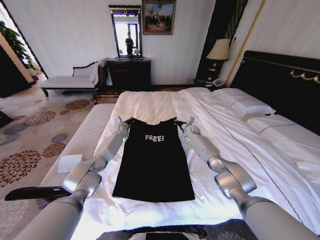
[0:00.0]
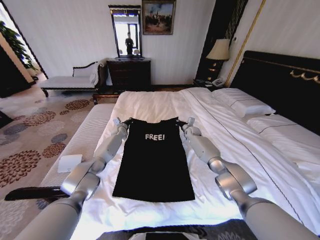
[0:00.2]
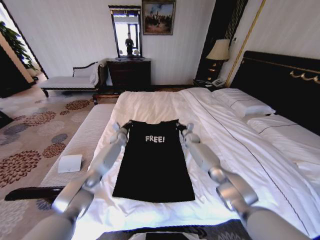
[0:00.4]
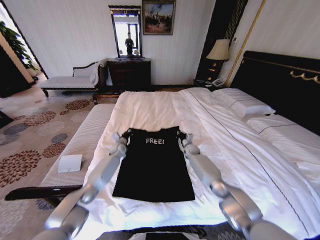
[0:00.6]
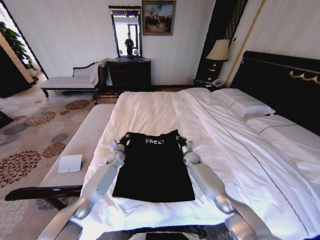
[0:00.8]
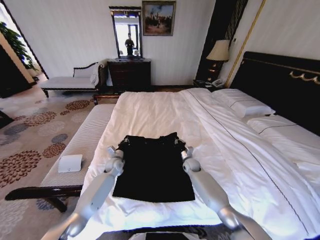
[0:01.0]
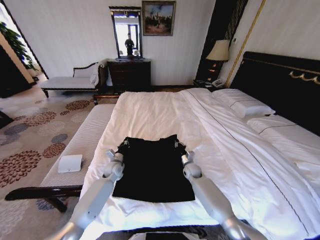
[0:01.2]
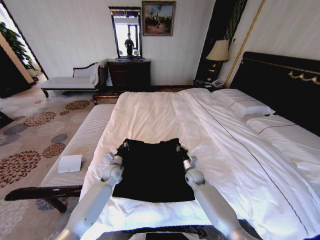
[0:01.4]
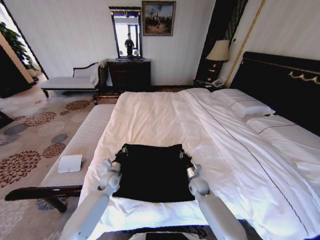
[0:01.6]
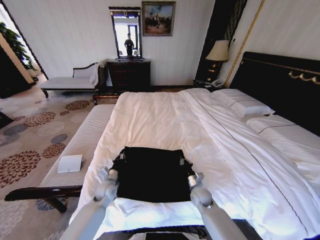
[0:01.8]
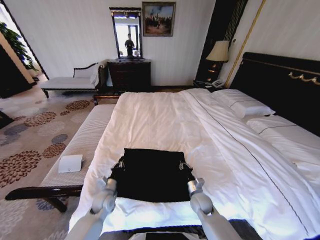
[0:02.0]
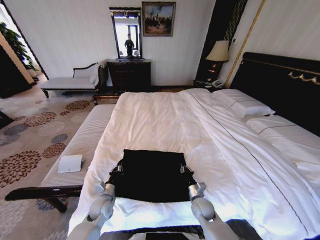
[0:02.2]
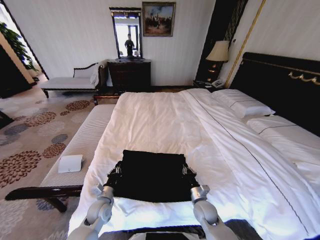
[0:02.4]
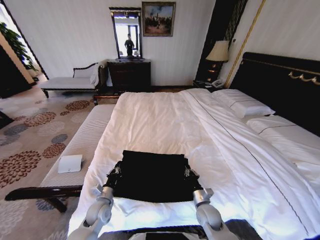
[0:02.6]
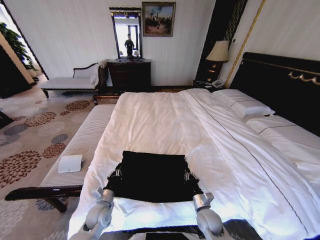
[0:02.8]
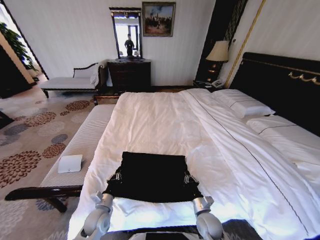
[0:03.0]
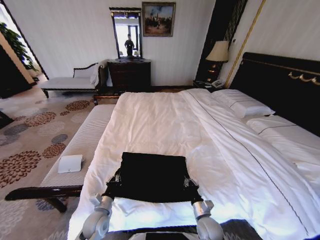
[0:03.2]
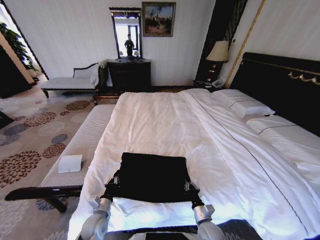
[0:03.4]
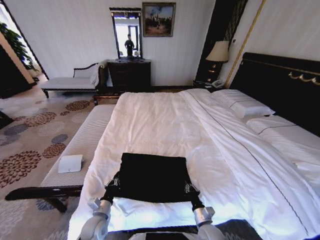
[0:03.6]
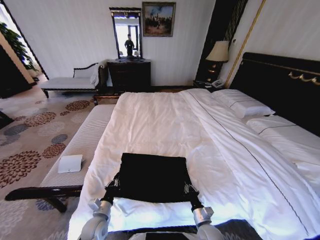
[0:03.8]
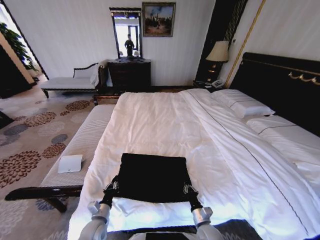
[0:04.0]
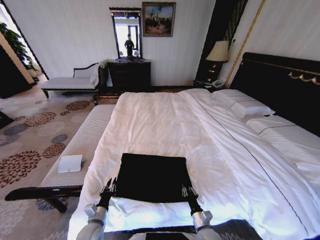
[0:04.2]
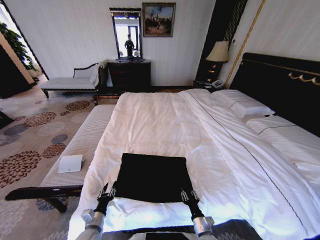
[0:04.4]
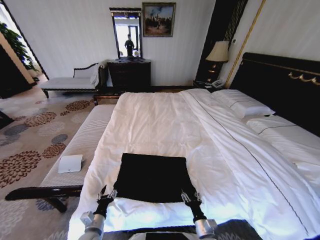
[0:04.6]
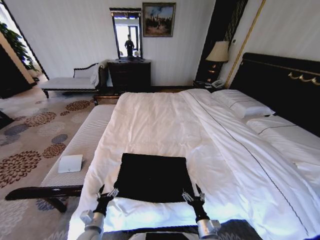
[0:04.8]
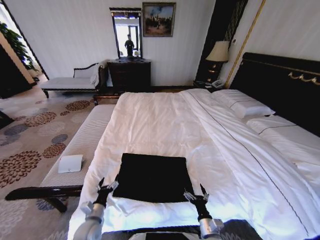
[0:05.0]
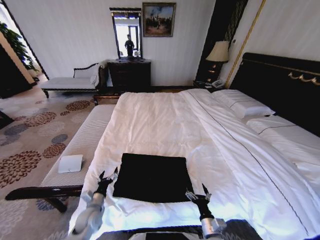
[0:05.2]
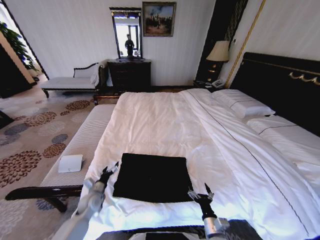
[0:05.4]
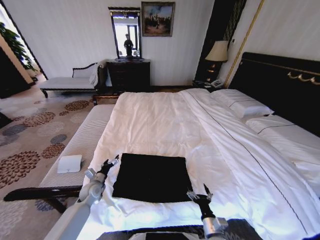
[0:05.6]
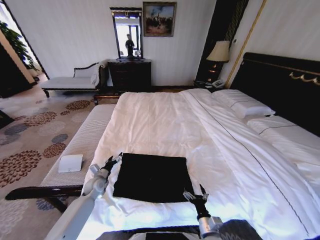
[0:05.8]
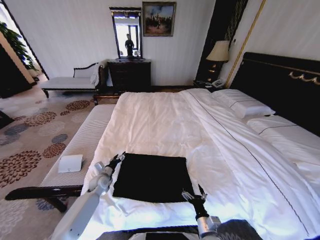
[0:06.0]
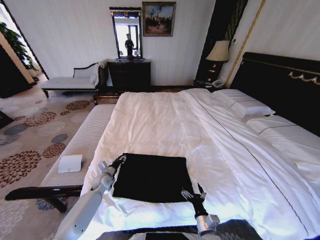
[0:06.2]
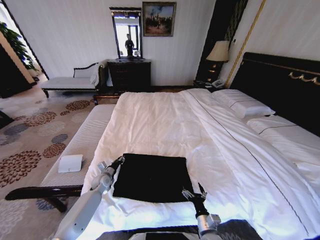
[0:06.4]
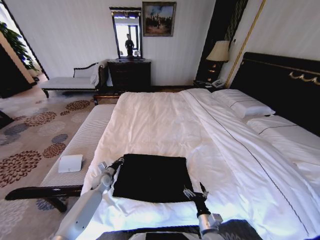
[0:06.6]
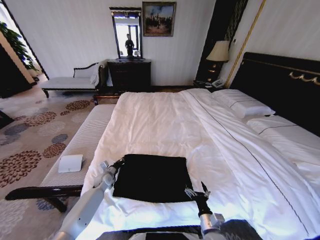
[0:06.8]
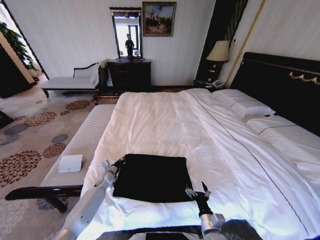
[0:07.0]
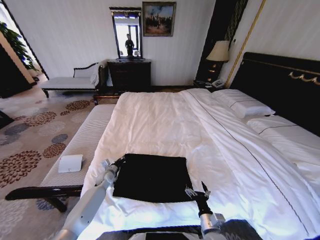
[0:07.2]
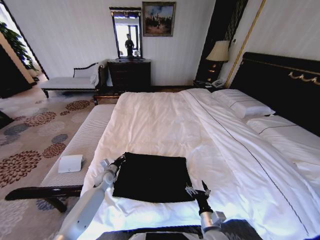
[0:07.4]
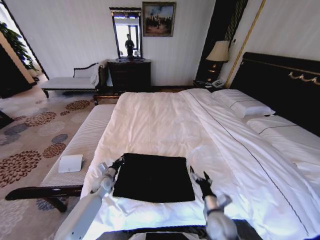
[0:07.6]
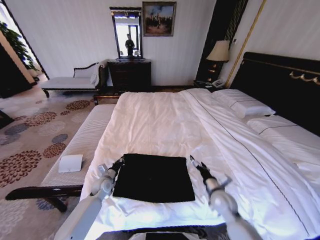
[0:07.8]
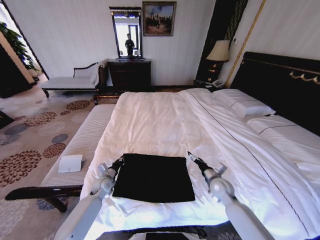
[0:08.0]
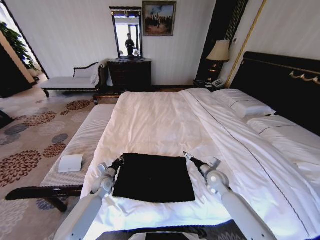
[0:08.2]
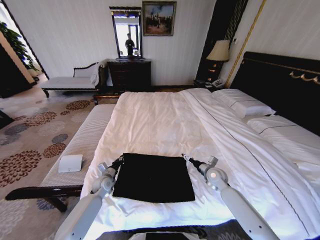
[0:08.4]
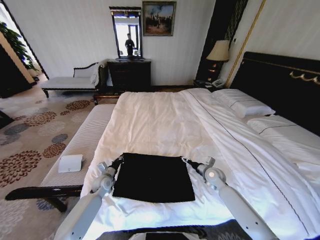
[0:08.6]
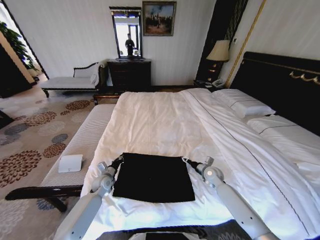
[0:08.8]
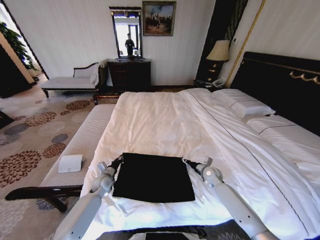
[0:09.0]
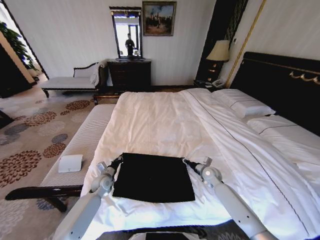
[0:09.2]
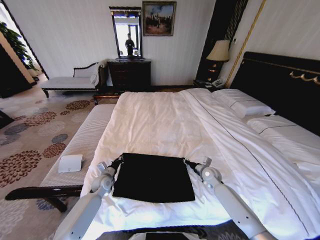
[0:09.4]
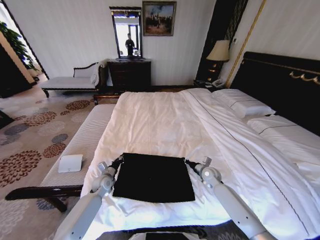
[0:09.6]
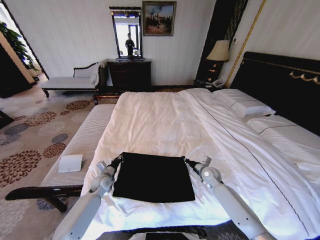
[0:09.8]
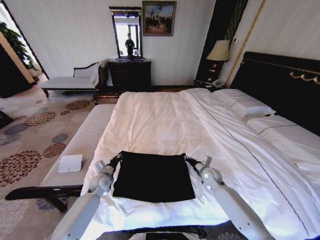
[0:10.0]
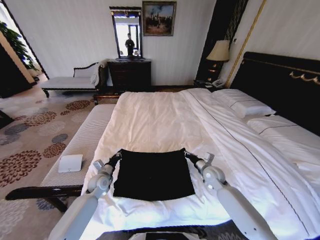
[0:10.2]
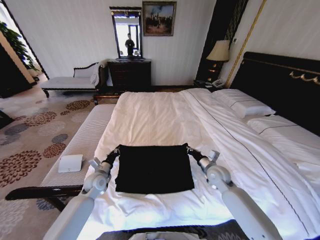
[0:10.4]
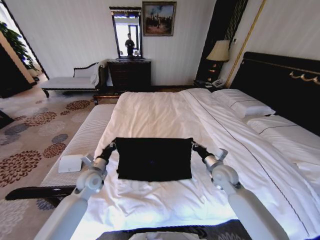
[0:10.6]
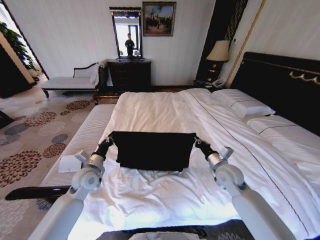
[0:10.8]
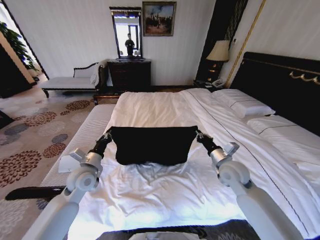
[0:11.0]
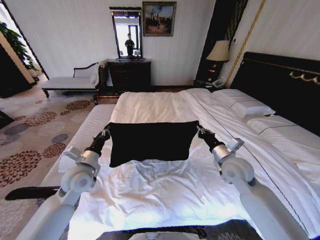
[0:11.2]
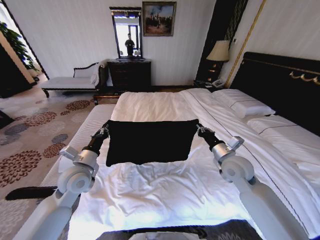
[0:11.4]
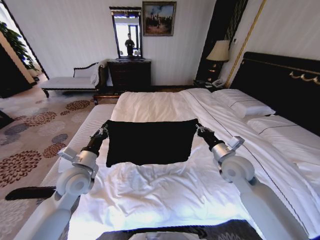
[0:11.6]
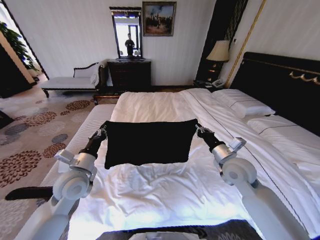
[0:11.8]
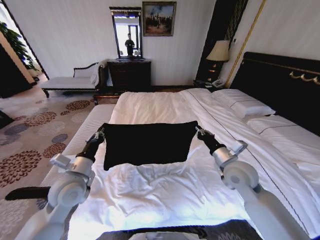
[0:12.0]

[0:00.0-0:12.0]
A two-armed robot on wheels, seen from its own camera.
Task of the whole recording: Fold the clothes on the bed.
0:00.0 to 0:01.6: The right gripper goes some 35 cm backward and downward. The left gripper moves backward, about 30 cm.
0:01.6 to 0:03.0: The grippers both shift backward by approximately 15 cm.
0:03.0 to 0:04.4: Both grippers travel together backward, roughly 5 cm. The right gripper opens its fingers, while the left gripper opens up.
0:04.4 to 0:06.0: The left gripper moves forward, about 25 cm. Meanwhile the right gripper opens its fingers.
0:06.0 to 0:07.6: The left gripper closes its fingers. The right gripper is displaced forward and upward by some 10 cm.
0:07.6 to 0:09.0: The right gripper shifts some 20 cm forward.
0:09.0 to 0:10.4: Both grippers travel together upward, roughly 10 cm. The right gripper closes up.
0:10.4 to 0:12.0: Both grippers move upward and backward, some 15 cm.

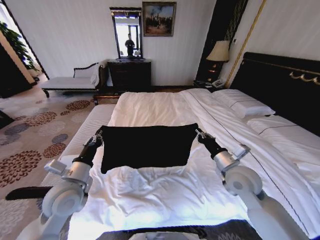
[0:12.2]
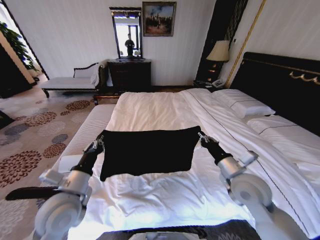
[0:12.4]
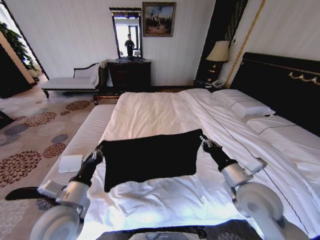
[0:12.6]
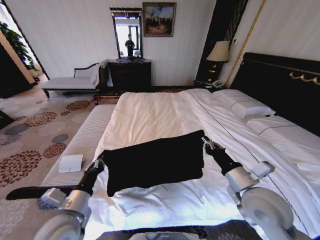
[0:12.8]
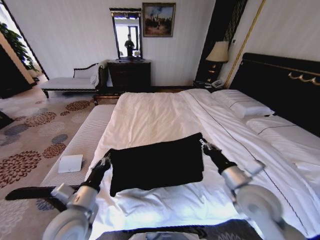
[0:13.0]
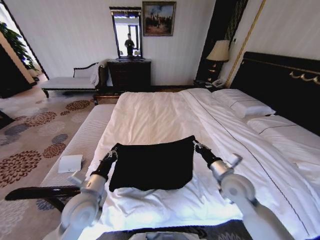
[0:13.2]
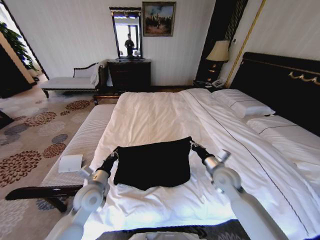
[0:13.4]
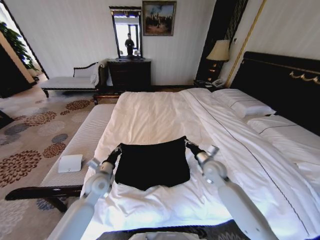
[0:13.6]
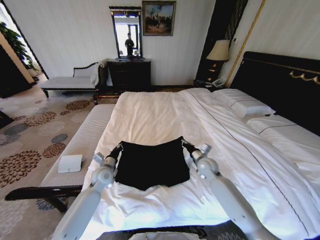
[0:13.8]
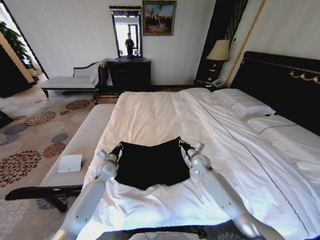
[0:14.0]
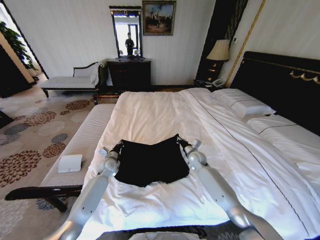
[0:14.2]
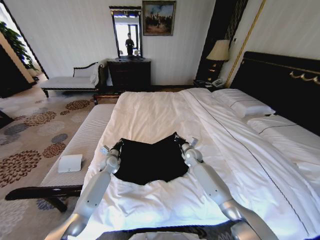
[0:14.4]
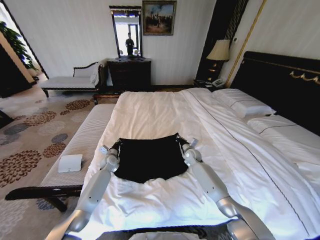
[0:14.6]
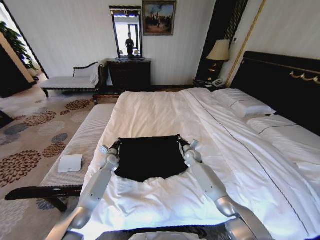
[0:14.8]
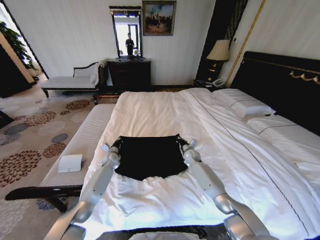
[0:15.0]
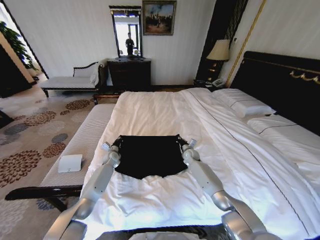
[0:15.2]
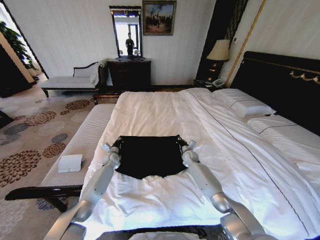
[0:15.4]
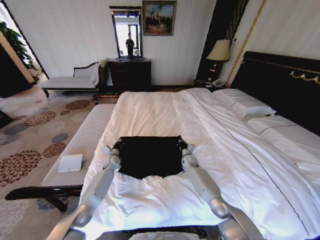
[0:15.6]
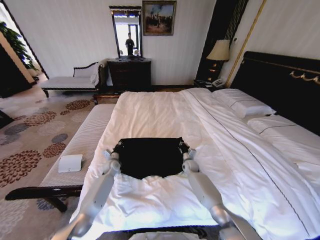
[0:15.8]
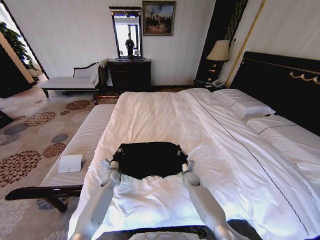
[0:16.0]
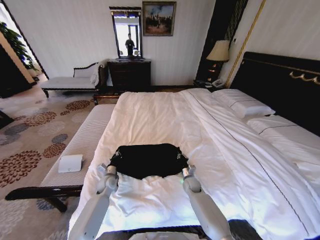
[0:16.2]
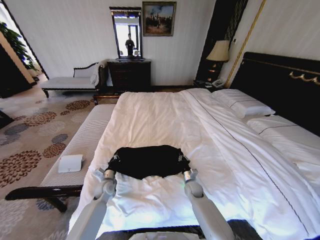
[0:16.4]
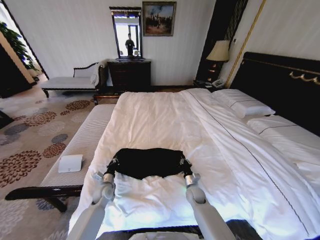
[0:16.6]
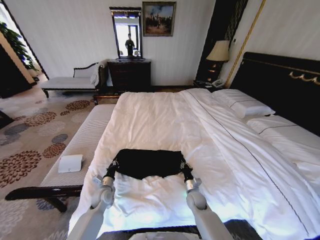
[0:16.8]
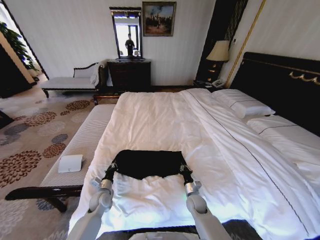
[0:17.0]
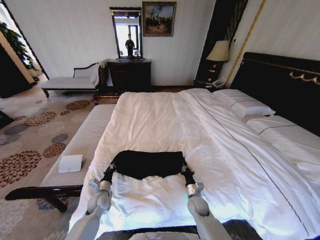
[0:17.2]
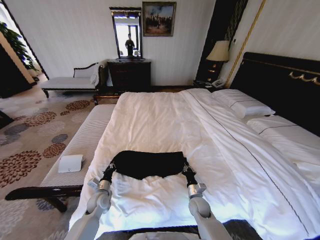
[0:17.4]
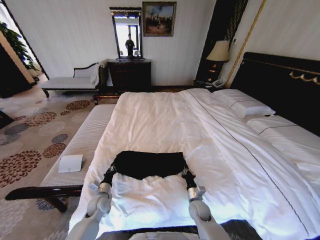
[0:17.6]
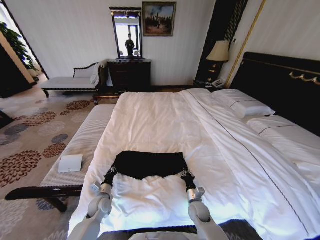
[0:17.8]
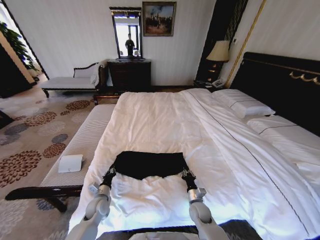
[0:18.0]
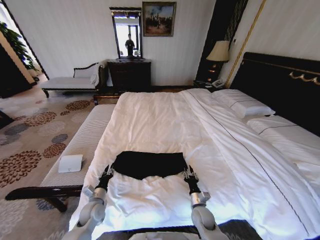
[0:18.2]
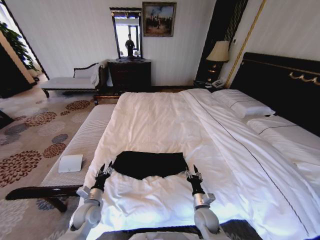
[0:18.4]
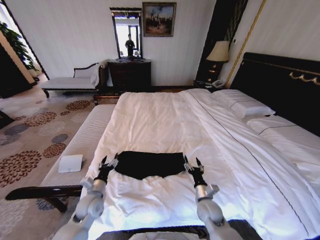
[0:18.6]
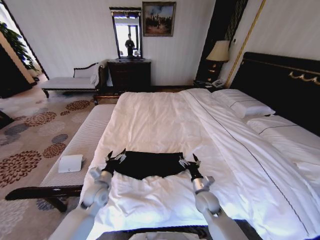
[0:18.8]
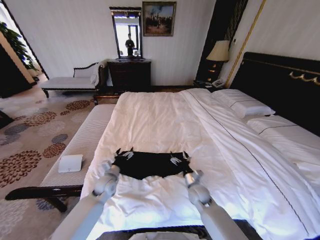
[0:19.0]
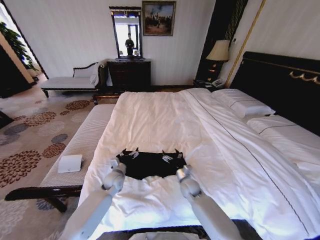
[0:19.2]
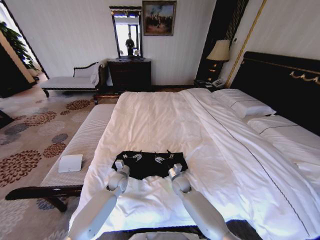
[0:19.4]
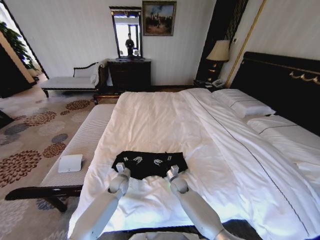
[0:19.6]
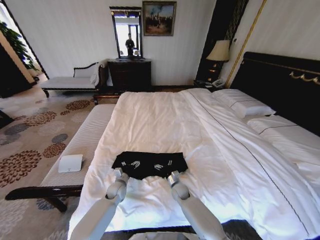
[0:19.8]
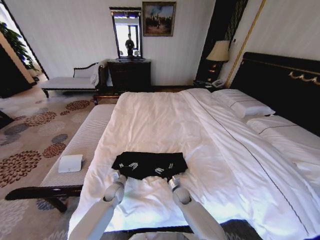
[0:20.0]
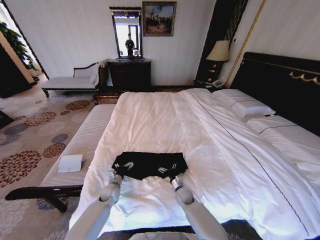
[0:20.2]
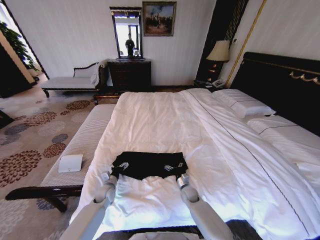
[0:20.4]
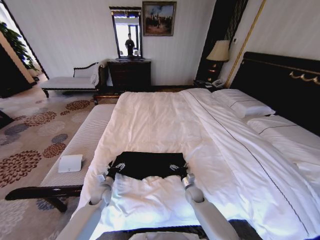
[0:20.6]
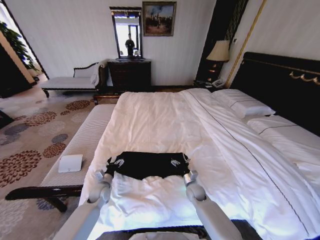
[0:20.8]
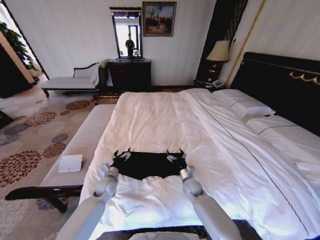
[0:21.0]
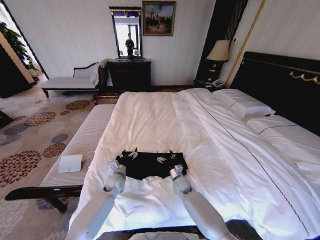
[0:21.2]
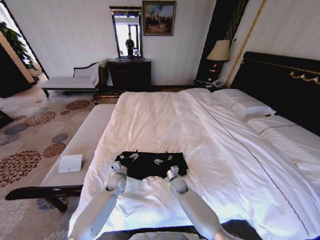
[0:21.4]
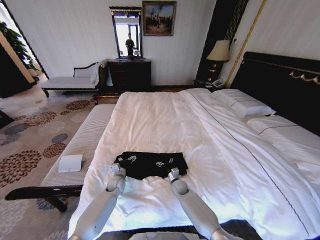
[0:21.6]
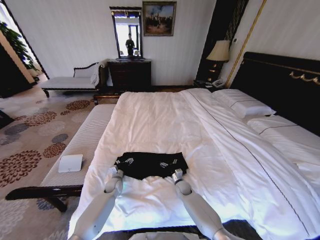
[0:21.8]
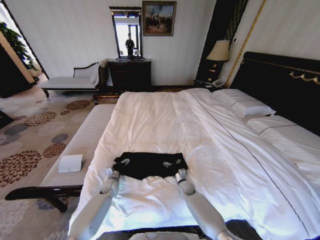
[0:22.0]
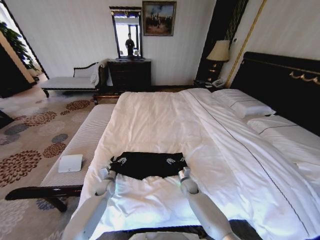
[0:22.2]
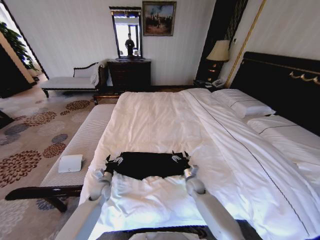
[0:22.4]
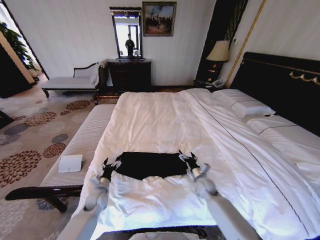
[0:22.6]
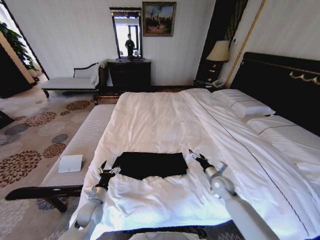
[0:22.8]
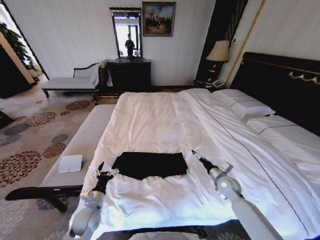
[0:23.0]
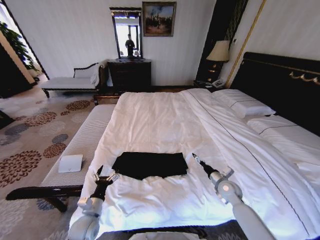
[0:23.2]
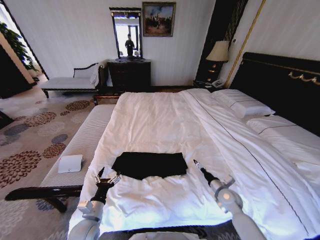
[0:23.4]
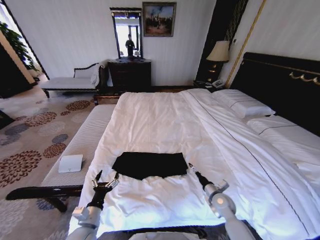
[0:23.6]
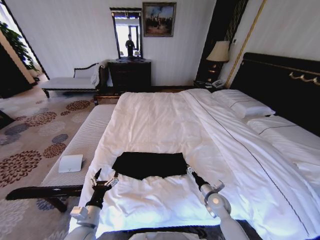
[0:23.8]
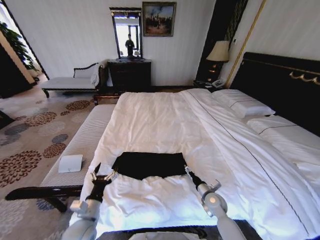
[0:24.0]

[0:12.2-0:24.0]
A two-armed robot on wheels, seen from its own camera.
Task of the whole recording: Fold the clothes on the bed.
0:12.2 to 0:13.6: The two grippers go about 15 cm downward and forward.
0:13.6 to 0:15.2: Both grippers travel together forward and downward, about 20 cm.
0:15.2 to 0:16.6: The left gripper moves backward, about 20 cm. Meanwhile the right gripper is displaced backward and downward by approximately 20 cm.
0:16.6 to 0:18.2: The grippers both shift backward by some 10 cm. The left gripper opens its fingers.
0:18.2 to 0:19.6: The left gripper travels forward and to the right by some 15 cm, and opens. The right gripper goes some 15 cm forward and to the left, and opens.
0:19.6 to 0:21.0: The left gripper shifts by about 5 cm, while the right gripper shifts about 5 cm to the right.
0:21.0 to 0:22.6: The left gripper travels backward by about 5 cm. Meanwhile the right gripper heads to the right, covering roughly 5 cm.
0:22.6 to 0:24.0: The right gripper shifts approximately 5 cm backward, and travels to the right and back again, about 10 cm each way, while the left gripper moves backward and upward, approximately 15 cm.
